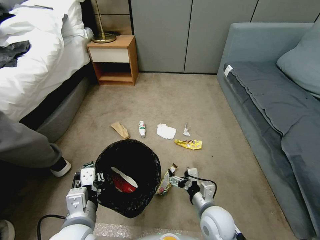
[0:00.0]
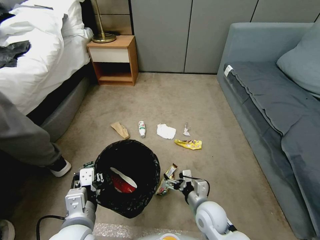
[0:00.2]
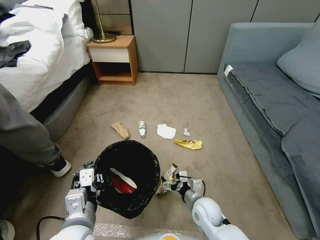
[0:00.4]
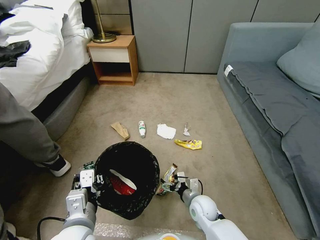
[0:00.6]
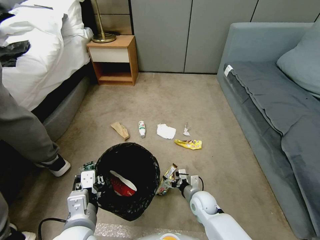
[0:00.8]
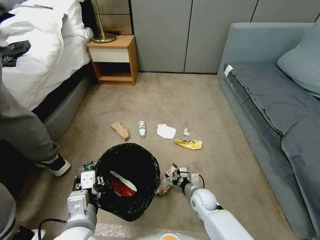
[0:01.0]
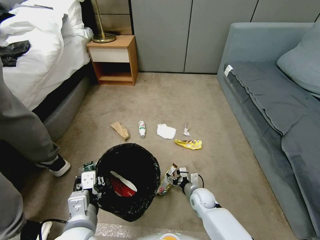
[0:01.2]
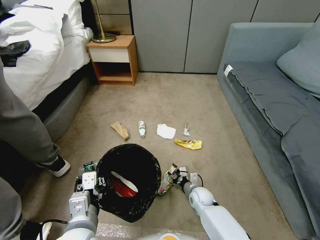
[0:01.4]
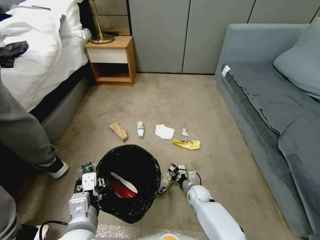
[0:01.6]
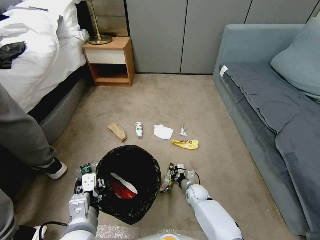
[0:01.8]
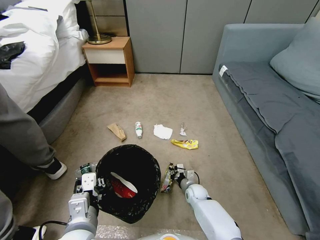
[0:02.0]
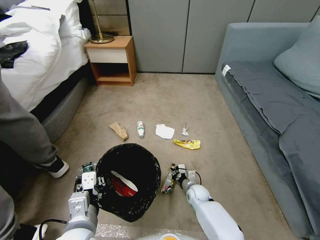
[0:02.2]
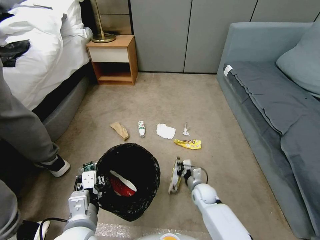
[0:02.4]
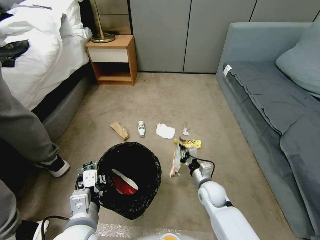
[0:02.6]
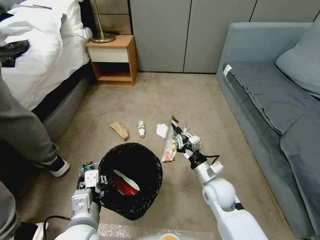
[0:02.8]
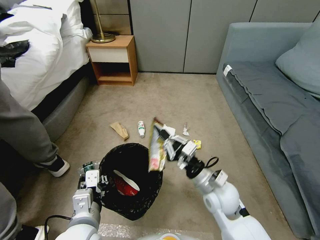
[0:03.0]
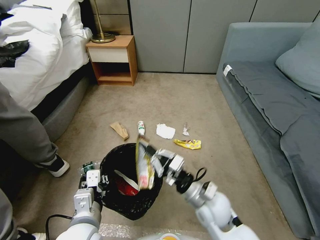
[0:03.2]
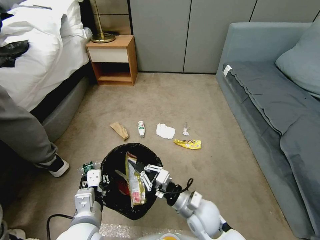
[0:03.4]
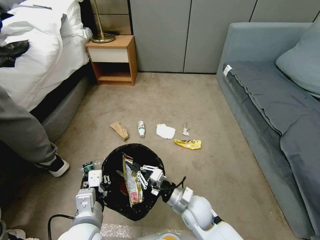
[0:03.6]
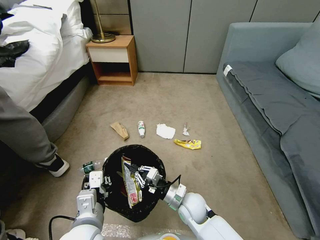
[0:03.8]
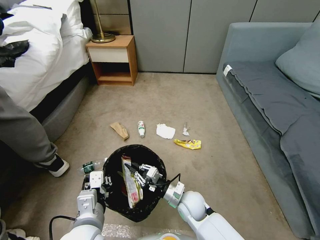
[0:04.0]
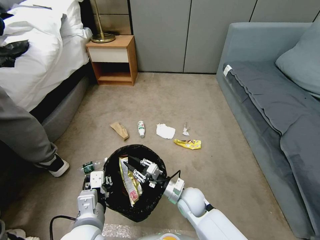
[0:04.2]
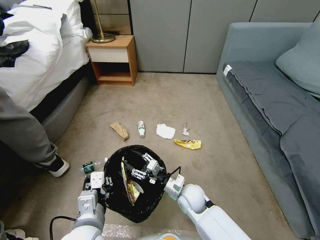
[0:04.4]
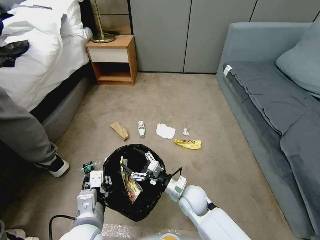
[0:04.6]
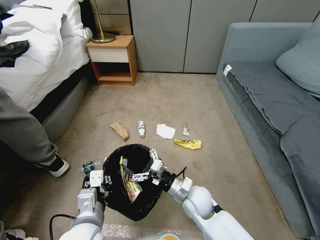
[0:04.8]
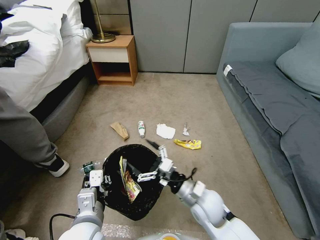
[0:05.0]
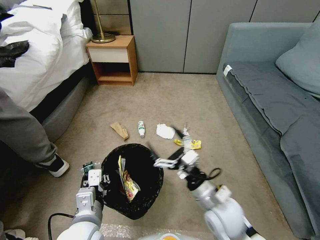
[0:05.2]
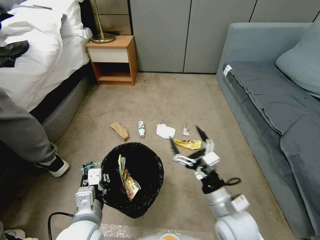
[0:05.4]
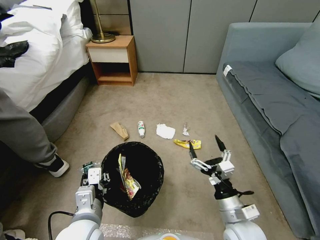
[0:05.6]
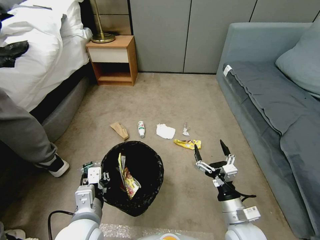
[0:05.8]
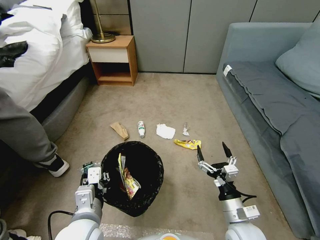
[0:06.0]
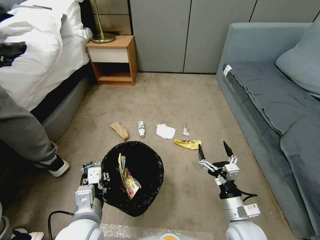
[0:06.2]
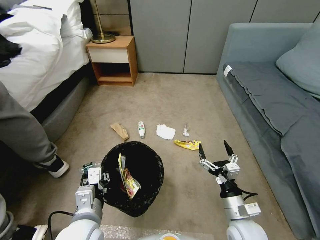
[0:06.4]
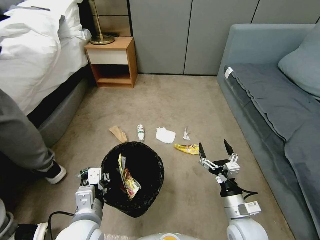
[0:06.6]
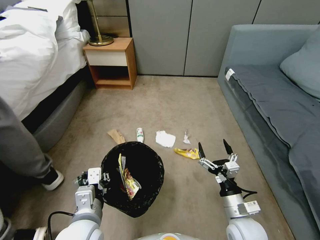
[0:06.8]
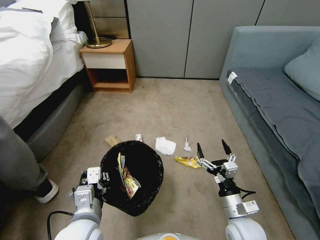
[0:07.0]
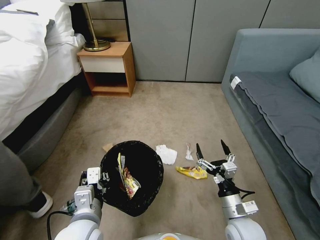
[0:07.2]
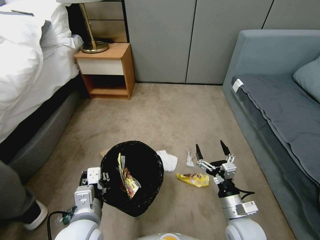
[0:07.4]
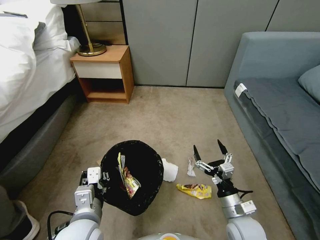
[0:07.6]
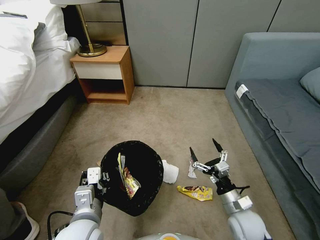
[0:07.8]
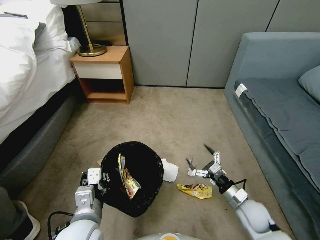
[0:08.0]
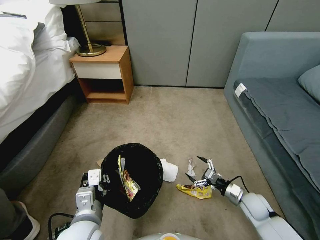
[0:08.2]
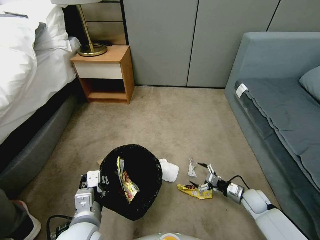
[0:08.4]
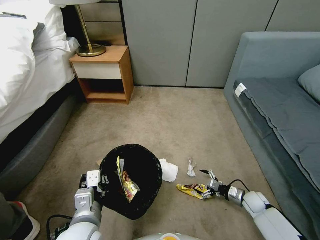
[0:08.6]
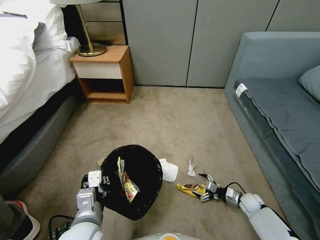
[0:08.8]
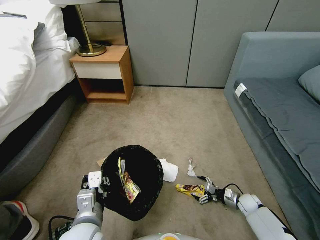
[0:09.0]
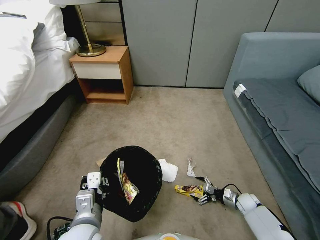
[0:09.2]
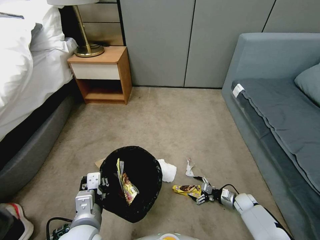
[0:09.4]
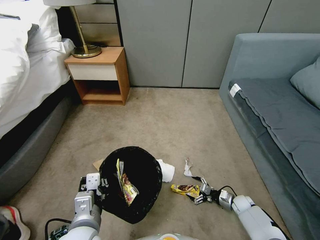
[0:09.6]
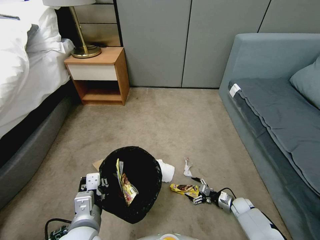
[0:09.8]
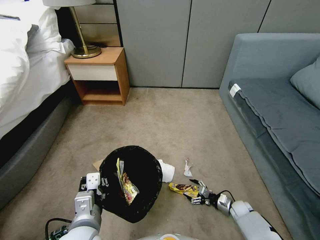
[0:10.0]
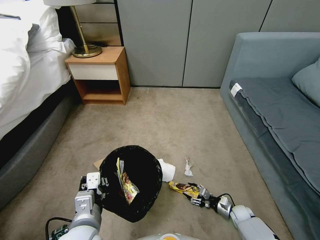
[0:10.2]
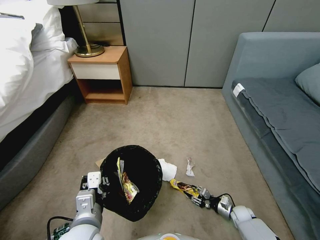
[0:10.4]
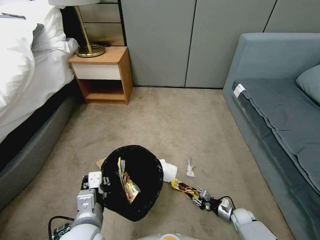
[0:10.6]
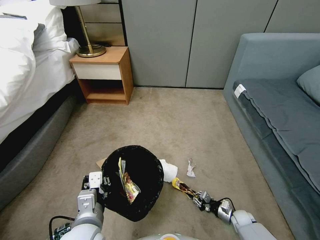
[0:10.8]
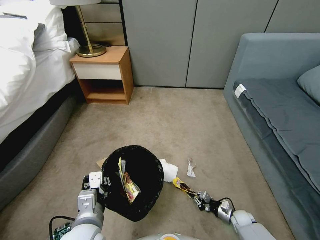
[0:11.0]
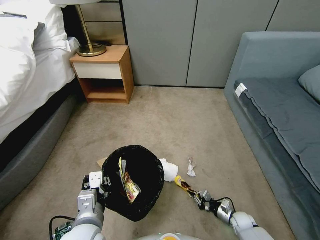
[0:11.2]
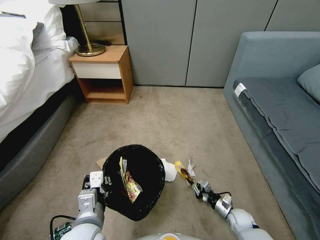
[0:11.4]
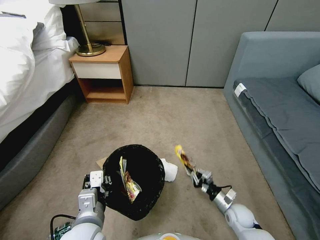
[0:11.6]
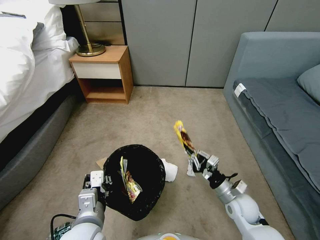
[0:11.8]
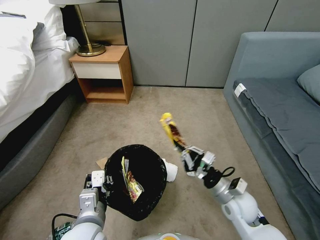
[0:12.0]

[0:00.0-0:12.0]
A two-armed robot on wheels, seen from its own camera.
Task of the whole recording: Pick up the trash bin, then pick up the garbage from the floor and place it into the trash bin.
0:00.0 to 0:01.6: The right gripper is displaced downward and forward by roughly 20 cm, and closes up.
0:01.6 to 0:03.0: The right gripper travels upward by approximately 25 cm.
0:03.0 to 0:04.4: The right gripper goes about 15 cm downward and to the left, and opens up.
0:04.4 to 0:06.0: The right gripper heads to the right, backward and upward, covering some 20 cm, and opens.
0:07.6 to 0:09.0: The right gripper travels downward, to the right and forward by about 30 cm.
0:09.0 to 0:10.4: The right gripper changes place by roughly 5 cm, and closes.
0:10.4 to 0:12.0: The right gripper moves upward and to the left, about 30 cm, and closes up.

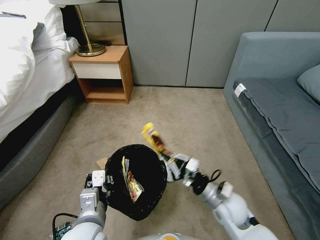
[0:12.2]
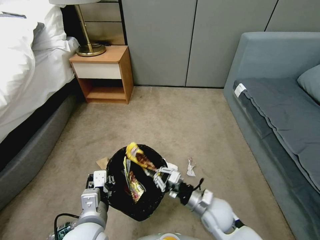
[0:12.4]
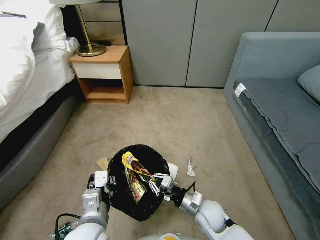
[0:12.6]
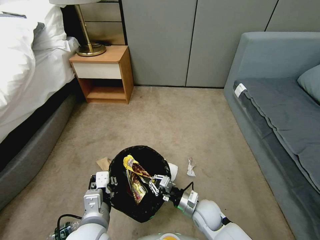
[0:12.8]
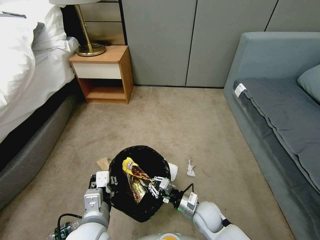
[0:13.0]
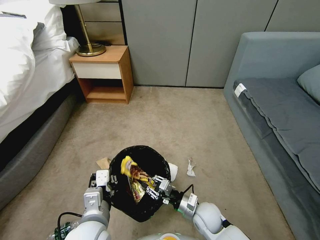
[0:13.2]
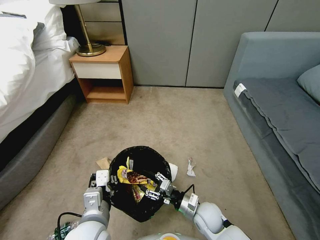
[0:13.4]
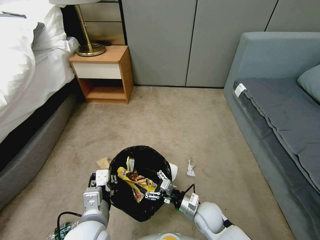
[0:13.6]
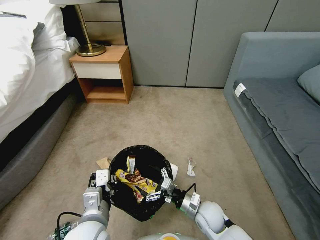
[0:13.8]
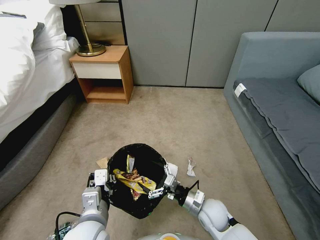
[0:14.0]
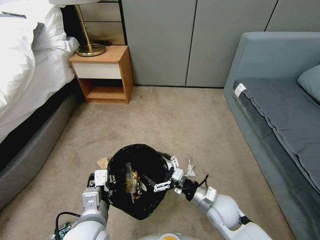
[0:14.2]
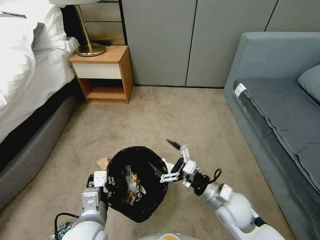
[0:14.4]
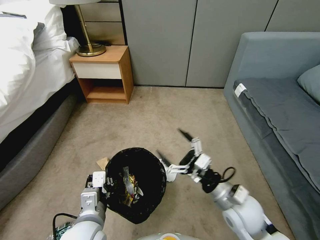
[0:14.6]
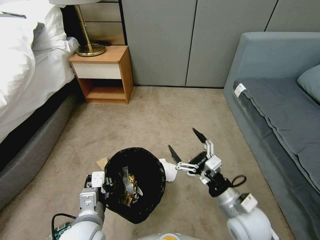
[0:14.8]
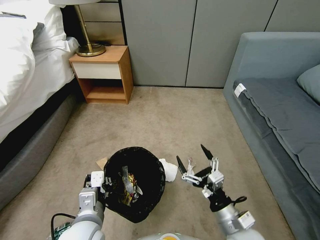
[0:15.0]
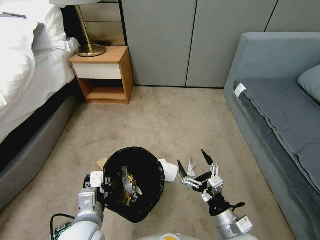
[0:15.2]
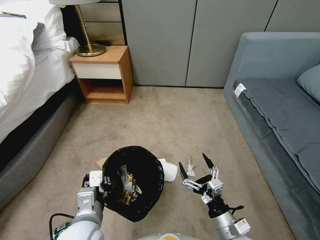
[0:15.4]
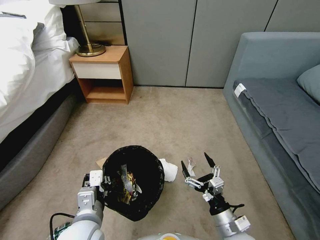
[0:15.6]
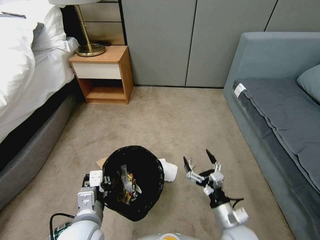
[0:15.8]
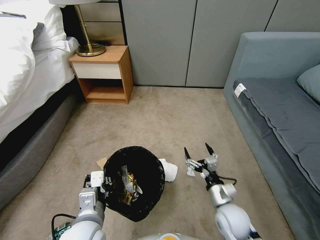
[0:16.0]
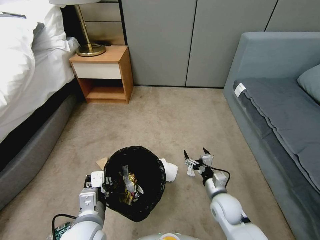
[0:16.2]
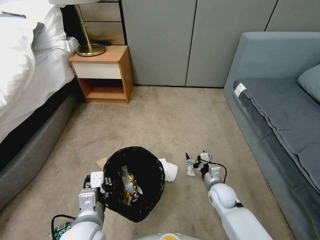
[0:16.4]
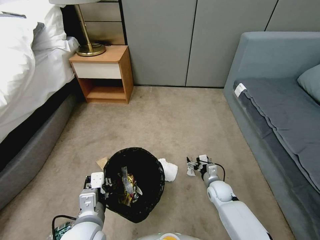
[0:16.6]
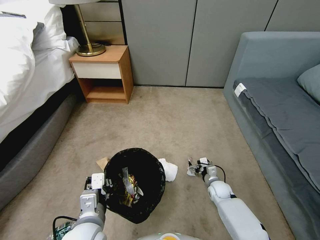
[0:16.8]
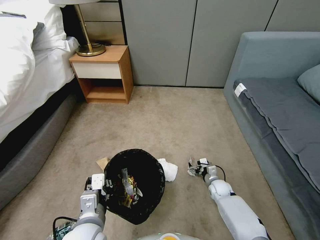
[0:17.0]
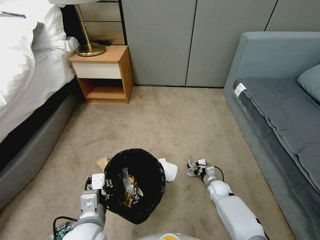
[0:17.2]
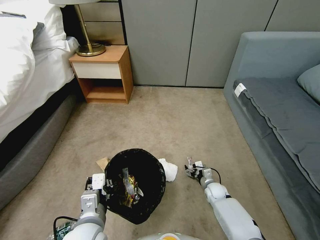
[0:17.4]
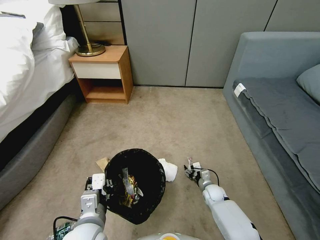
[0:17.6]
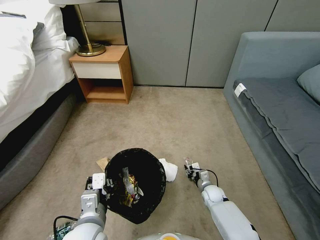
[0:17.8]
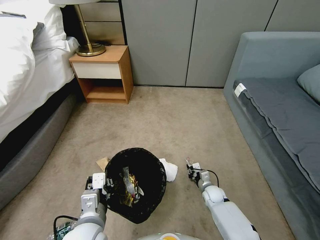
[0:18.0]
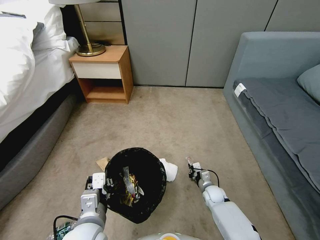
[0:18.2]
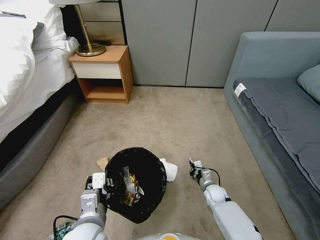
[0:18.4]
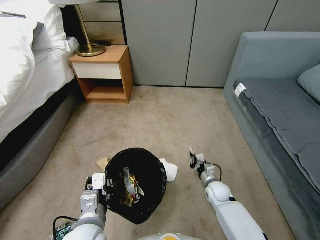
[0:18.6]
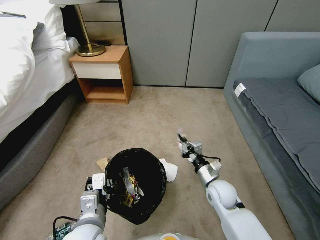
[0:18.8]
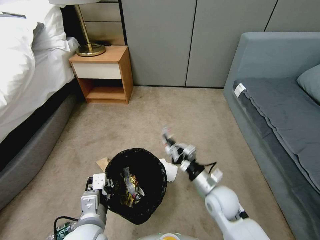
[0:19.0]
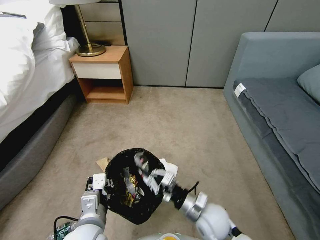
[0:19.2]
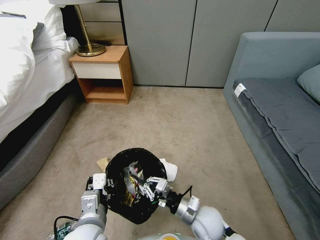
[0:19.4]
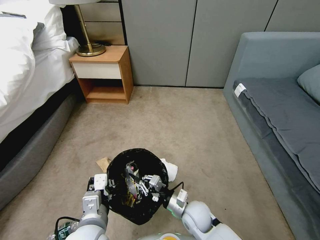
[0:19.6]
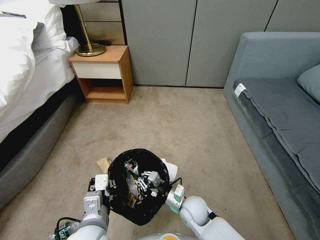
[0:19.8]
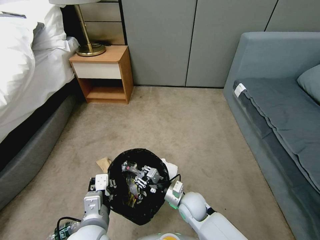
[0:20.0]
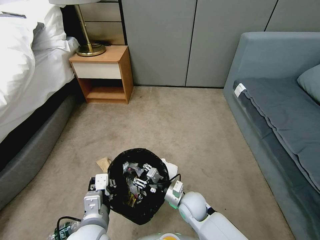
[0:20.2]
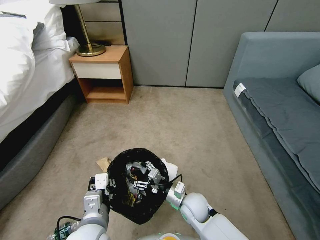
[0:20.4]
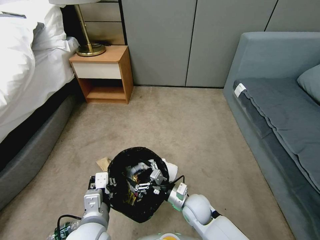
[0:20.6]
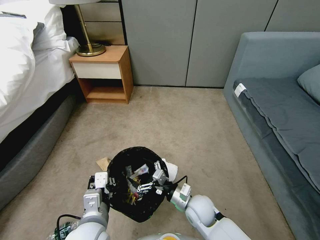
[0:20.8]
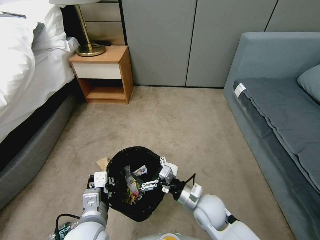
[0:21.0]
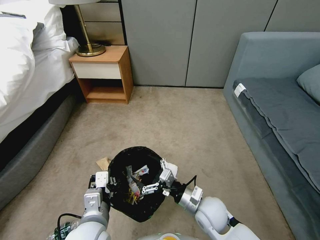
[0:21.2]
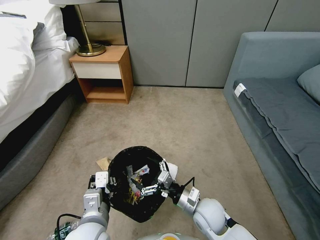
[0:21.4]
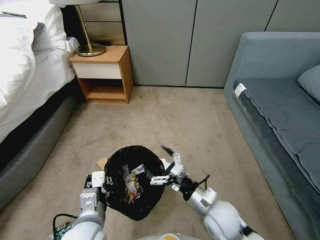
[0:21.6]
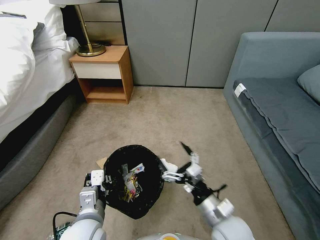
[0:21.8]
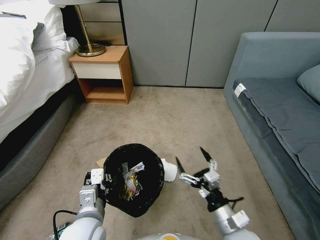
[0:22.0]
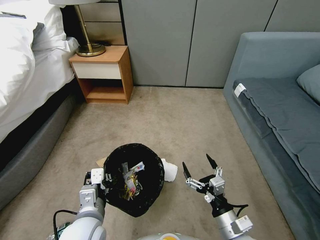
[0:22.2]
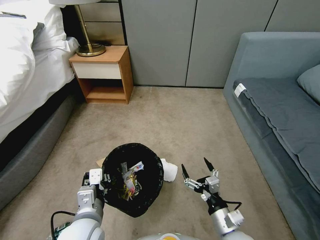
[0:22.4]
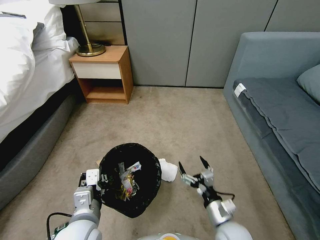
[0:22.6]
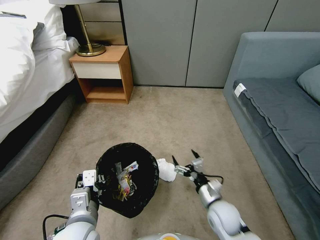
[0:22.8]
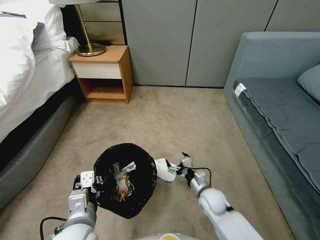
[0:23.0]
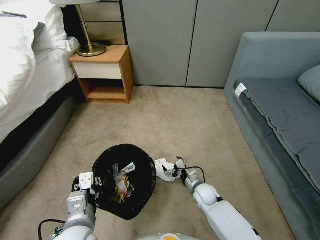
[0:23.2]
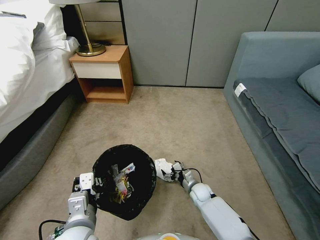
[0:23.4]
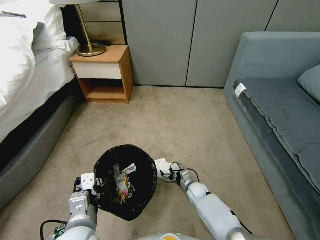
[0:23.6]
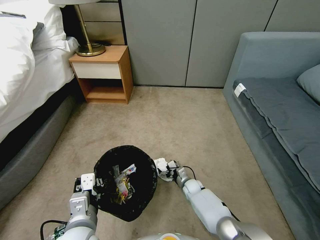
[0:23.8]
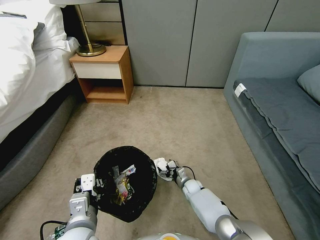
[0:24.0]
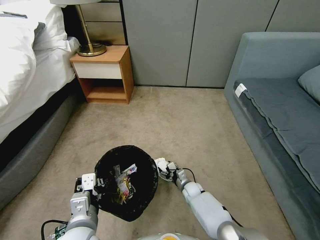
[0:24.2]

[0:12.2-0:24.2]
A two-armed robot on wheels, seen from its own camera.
Task of the whole recording: Pick up the trash bin, then pick up the garbage from the floor and place it into the trash bin.
0:12.2 to 0:13.8: The right gripper shifts about 10 cm downward, and opens.
0:13.8 to 0:15.2: The right gripper is displaced backward, upward and to the right by some 15 cm.
0:15.2 to 0:16.6: The right gripper travels forward and downward by approximately 25 cm.
0:16.6 to 0:18.2: The right gripper is displaced downward by approximately 5 cm, and closes.
0:18.2 to 0:19.8: The right gripper shifts roughly 20 cm to the left, upward and backward.
0:19.8 to 0:21.2: The right gripper travels upward by approximately 5 cm, and opens its fingers.
0:21.2 to 0:22.6: The right gripper shifts approximately 10 cm backward and to the right.
0:22.6 to 0:24.2: The right gripper moves downward and forward, approximately 25 cm.
